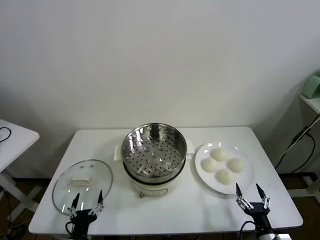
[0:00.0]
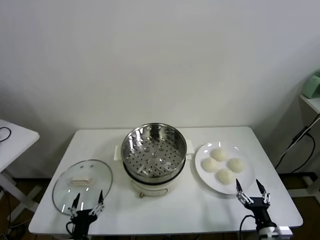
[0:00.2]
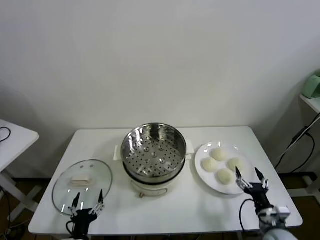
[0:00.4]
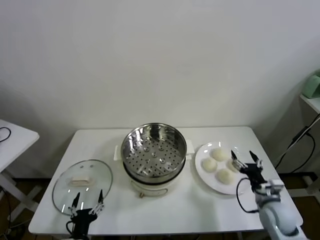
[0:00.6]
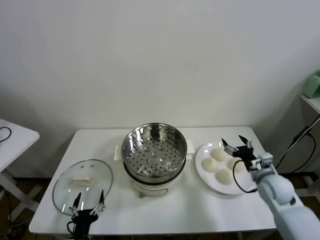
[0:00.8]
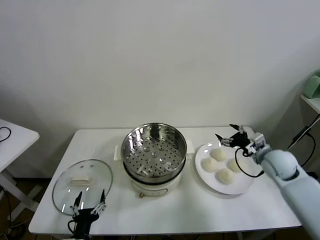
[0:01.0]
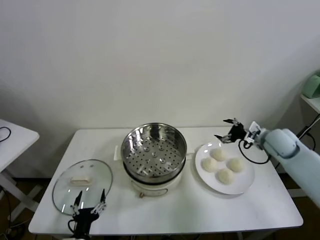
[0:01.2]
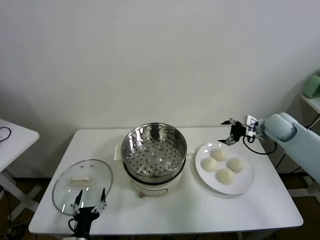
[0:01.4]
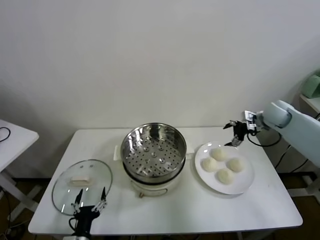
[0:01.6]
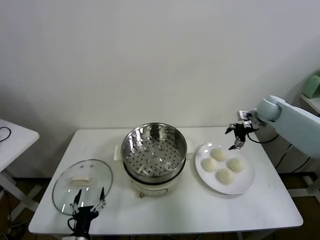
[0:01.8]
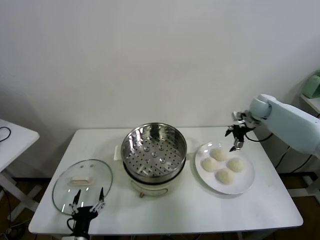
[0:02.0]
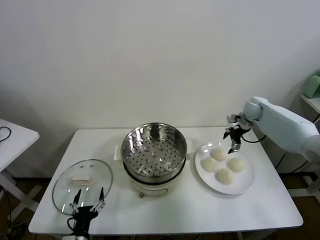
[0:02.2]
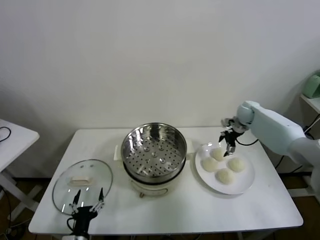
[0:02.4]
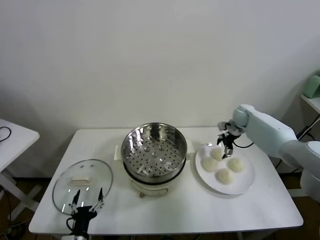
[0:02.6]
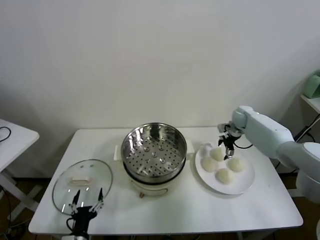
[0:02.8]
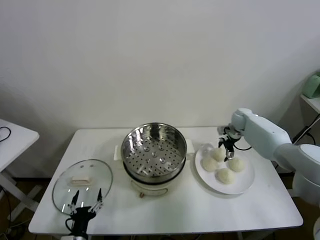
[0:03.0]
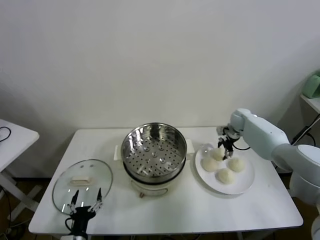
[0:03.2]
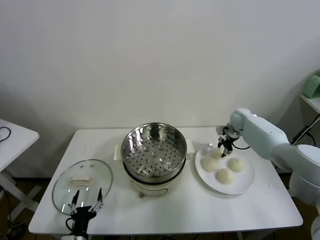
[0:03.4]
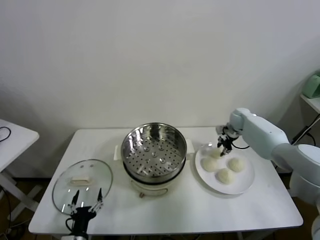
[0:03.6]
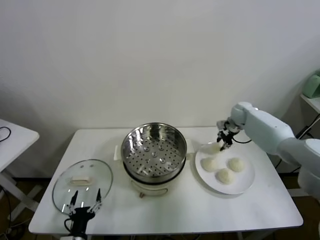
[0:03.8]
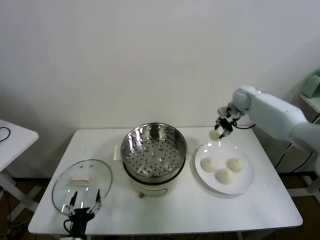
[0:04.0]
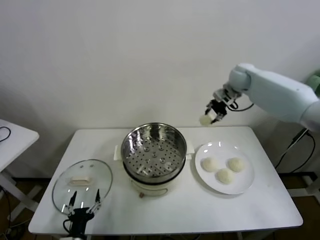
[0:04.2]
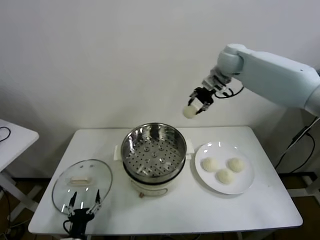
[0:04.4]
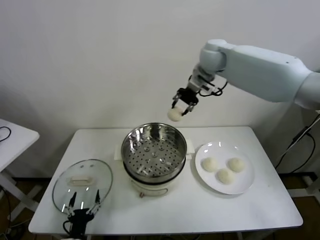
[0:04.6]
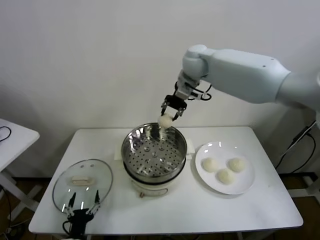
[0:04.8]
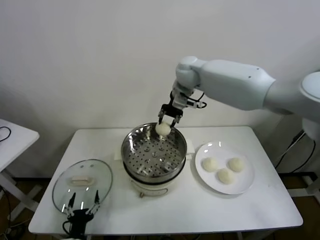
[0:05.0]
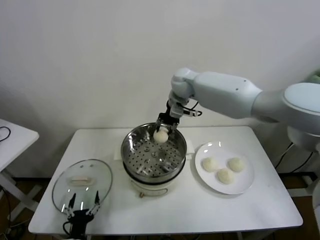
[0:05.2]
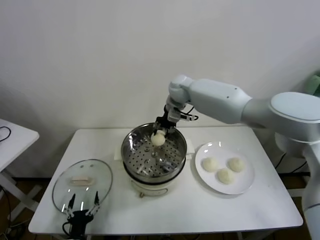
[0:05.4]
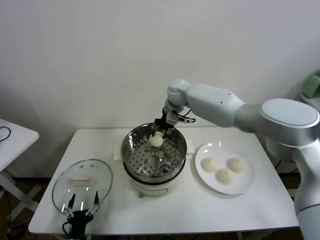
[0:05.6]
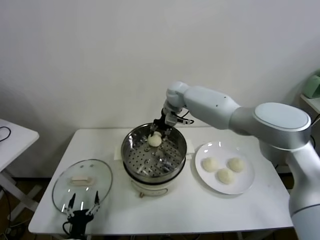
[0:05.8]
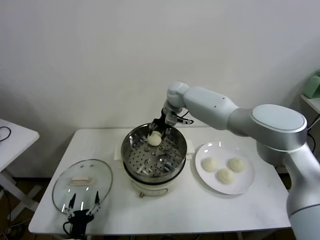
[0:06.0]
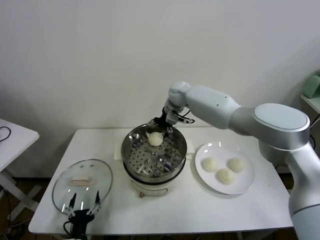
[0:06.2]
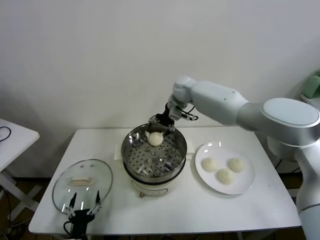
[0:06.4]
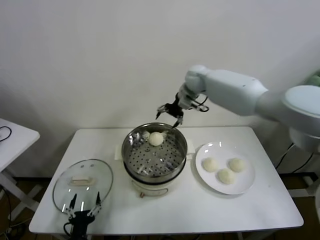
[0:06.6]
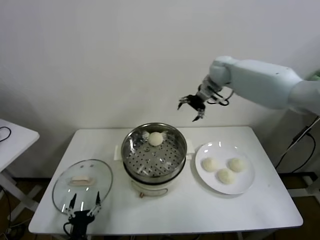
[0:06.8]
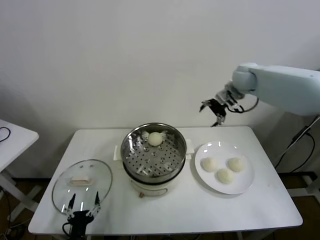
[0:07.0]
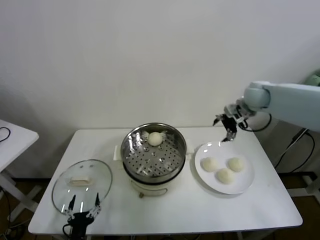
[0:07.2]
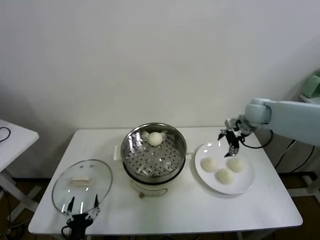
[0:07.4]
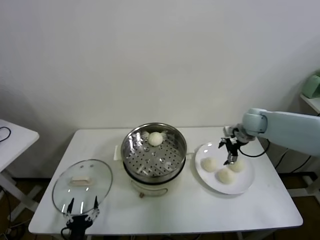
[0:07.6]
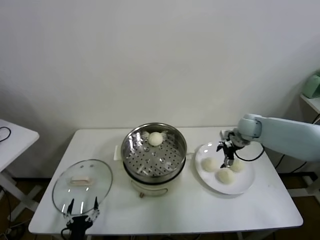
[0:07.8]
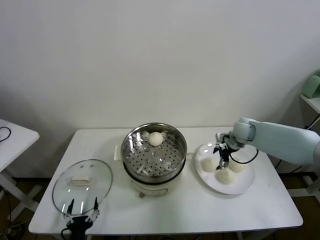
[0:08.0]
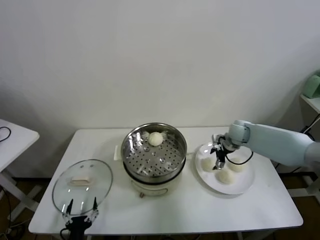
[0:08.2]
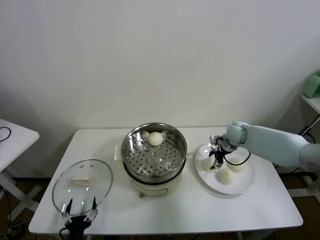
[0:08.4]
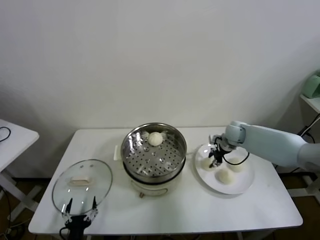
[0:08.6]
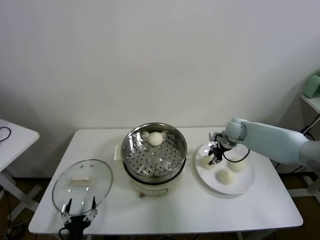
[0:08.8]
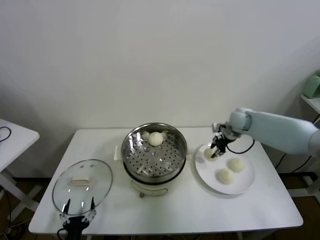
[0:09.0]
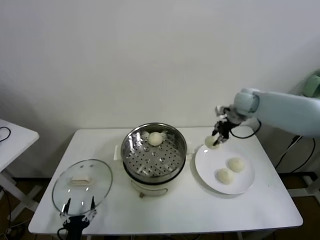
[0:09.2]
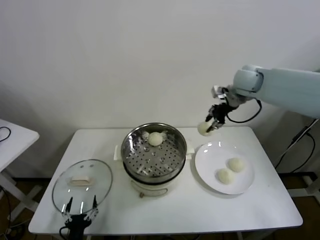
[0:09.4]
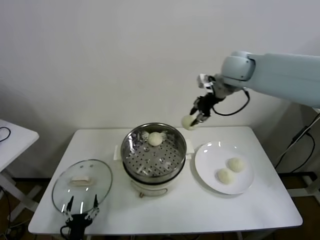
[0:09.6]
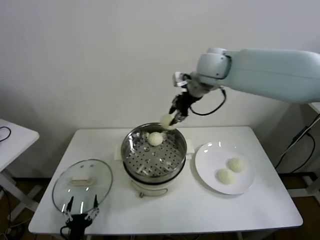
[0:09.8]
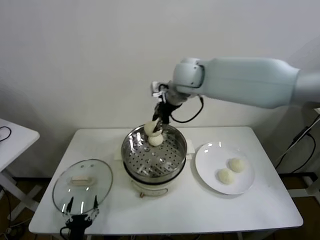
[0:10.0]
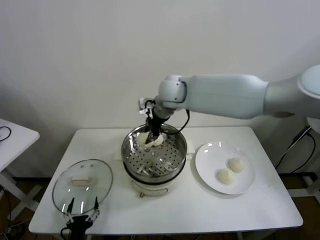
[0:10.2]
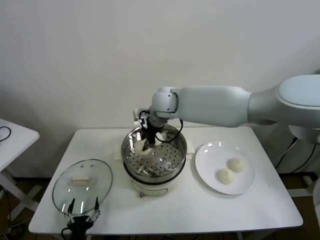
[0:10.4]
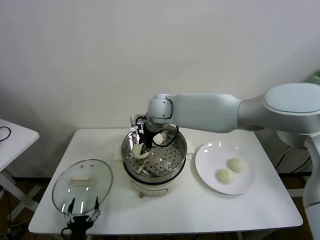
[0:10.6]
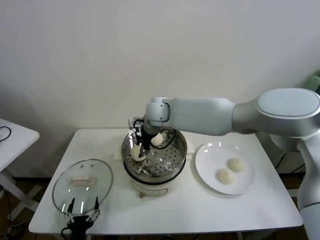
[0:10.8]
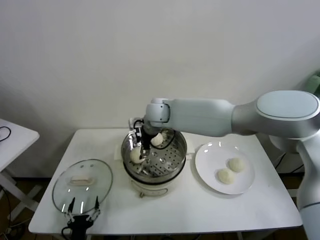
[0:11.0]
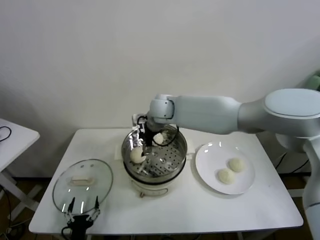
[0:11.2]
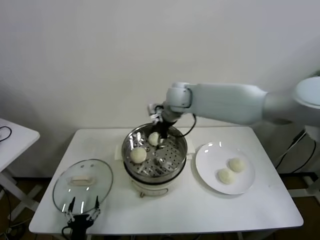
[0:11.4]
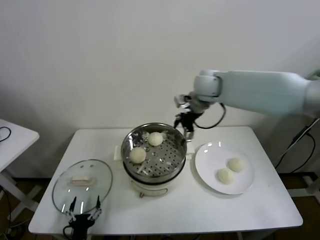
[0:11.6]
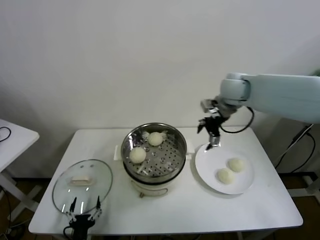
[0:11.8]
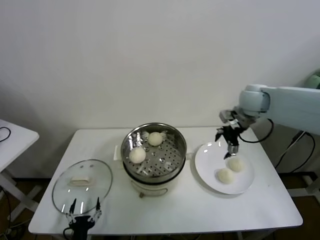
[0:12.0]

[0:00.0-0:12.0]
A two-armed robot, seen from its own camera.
Task of the whole recording: take steamed baozi put them in steamer.
Step, 0:00.0 to 0:03.4: Grasp the baozi in the plate with right gripper.
Step, 0:03.6 to 0:06.2: Place the baozi on the steamer with right gripper.
Step, 0:06.4 to 0:08.6: Grasp the baozi in the plate with right gripper.
Step, 0:08.8 to 0:11.0: Place the baozi on the steamer with right gripper.
0:01.6 to 0:03.0: The right gripper goes approximately 15 cm downward, forward and to the left.
0:03.0 to 0:04.4: The right gripper goes about 35 cm upward and to the left, and closes up.
0:04.4 to 0:06.0: The right gripper moves downward and to the left, some 20 cm, and opens up.
0:06.0 to 0:07.6: The right gripper is displaced to the right by roughly 25 cm, and opens up.
0:07.6 to 0:09.0: The right gripper travels downward and back again, approximately 5 cm each way, and closes up.
0:09.0 to 0:10.4: The right gripper is displaced to the left by approximately 30 cm.
0:10.4 to 0:12.0: The right gripper moves to the right, approximately 30 cm, and opens its fingers.

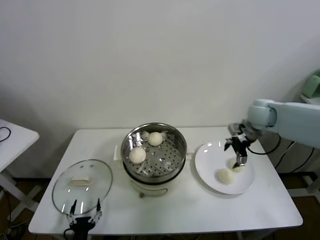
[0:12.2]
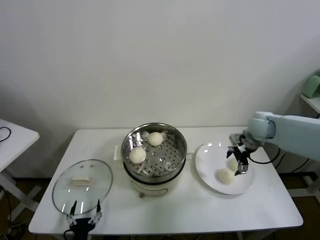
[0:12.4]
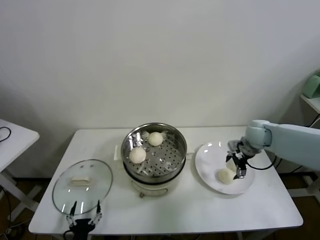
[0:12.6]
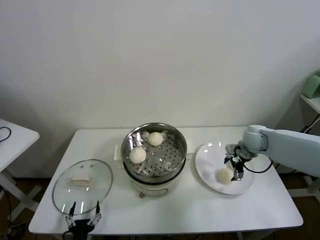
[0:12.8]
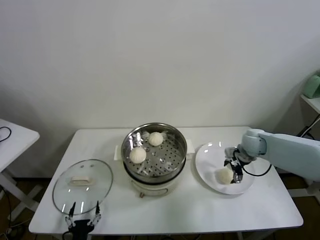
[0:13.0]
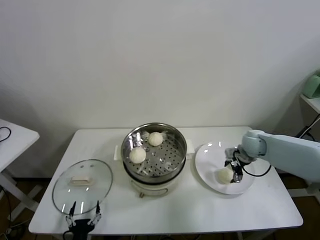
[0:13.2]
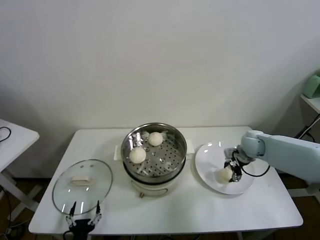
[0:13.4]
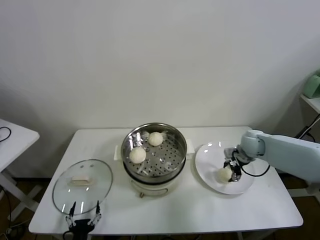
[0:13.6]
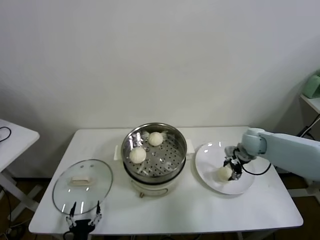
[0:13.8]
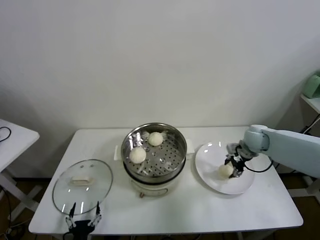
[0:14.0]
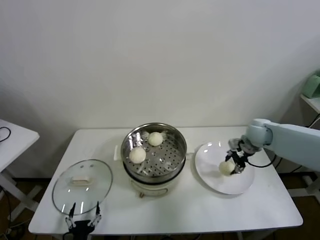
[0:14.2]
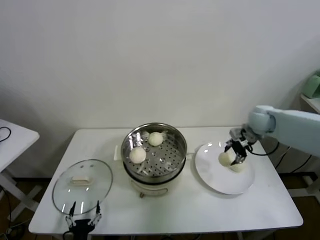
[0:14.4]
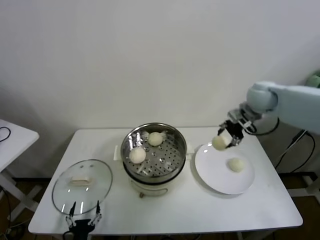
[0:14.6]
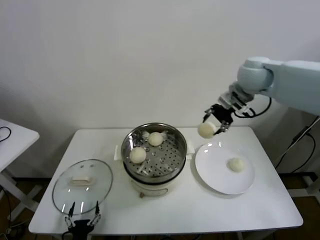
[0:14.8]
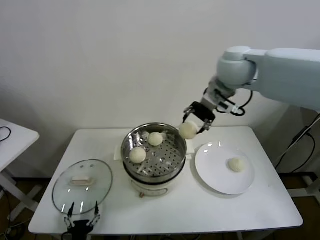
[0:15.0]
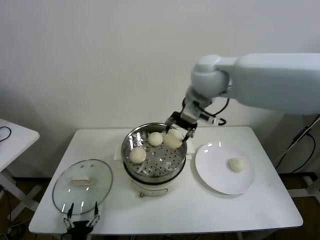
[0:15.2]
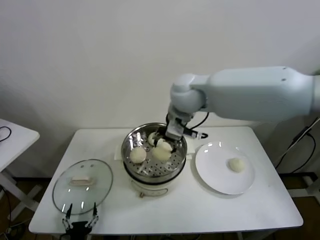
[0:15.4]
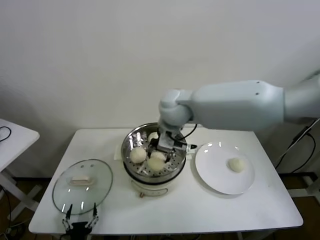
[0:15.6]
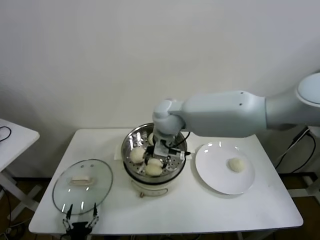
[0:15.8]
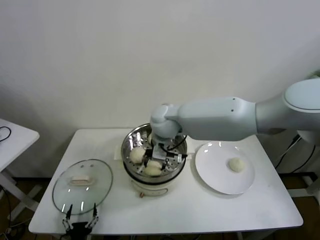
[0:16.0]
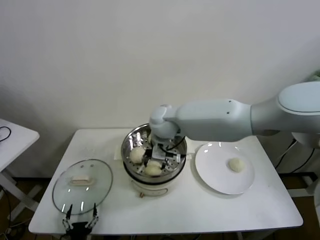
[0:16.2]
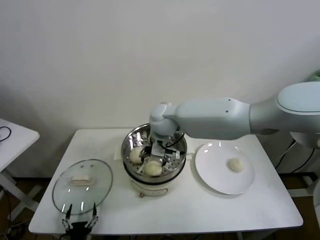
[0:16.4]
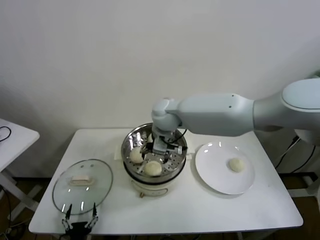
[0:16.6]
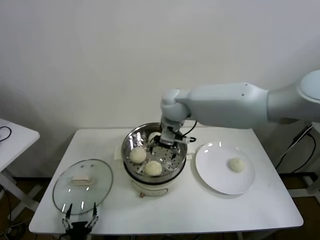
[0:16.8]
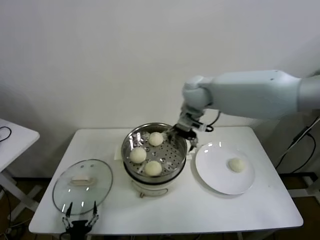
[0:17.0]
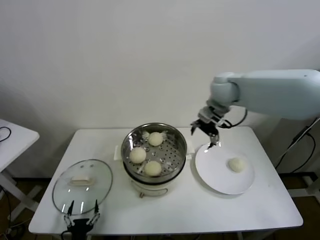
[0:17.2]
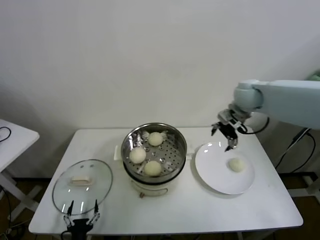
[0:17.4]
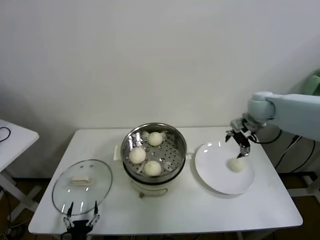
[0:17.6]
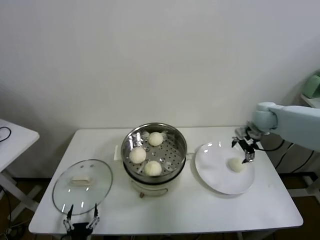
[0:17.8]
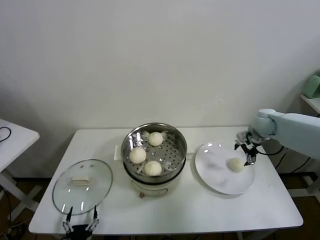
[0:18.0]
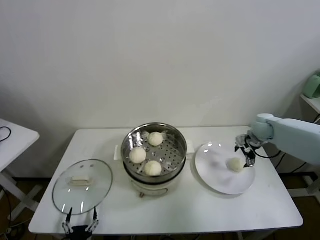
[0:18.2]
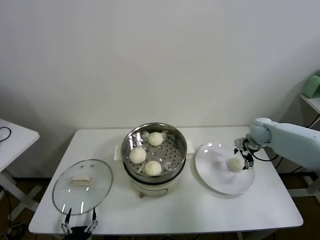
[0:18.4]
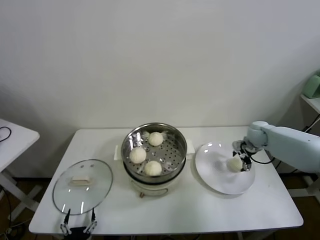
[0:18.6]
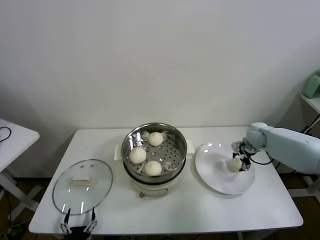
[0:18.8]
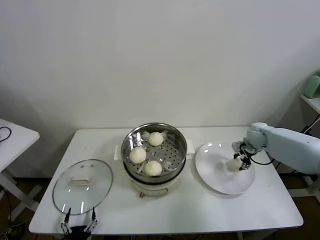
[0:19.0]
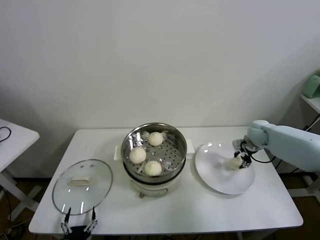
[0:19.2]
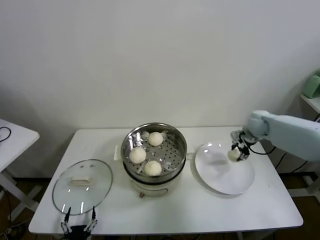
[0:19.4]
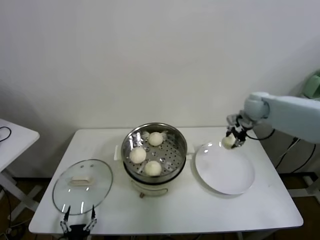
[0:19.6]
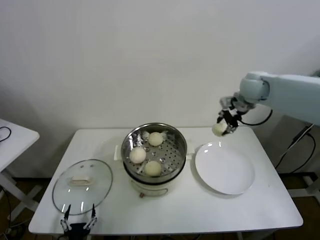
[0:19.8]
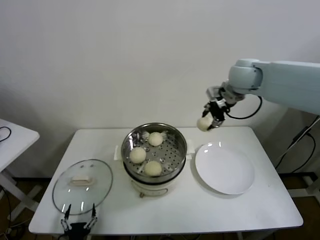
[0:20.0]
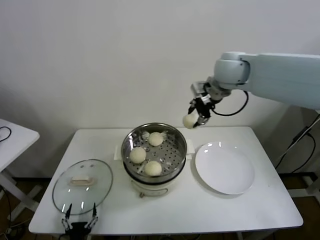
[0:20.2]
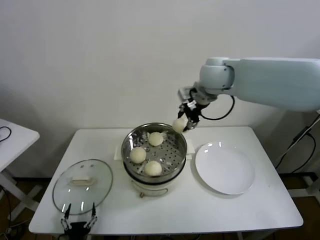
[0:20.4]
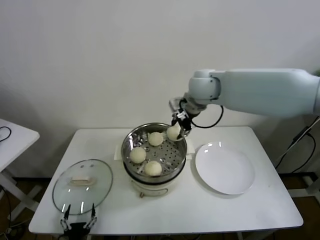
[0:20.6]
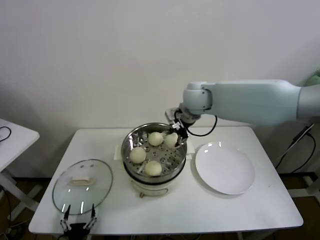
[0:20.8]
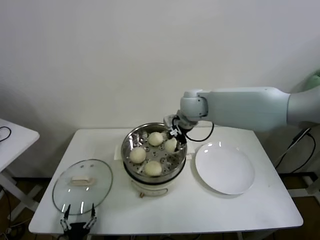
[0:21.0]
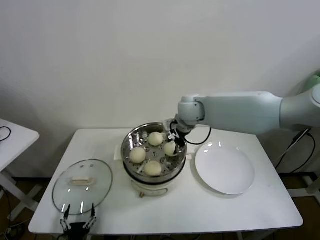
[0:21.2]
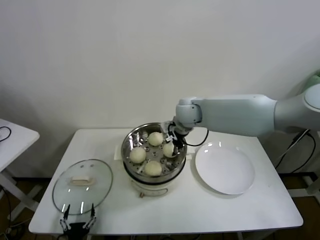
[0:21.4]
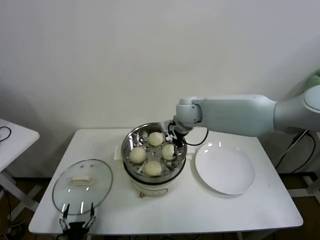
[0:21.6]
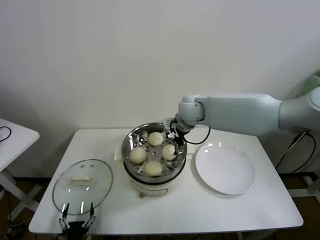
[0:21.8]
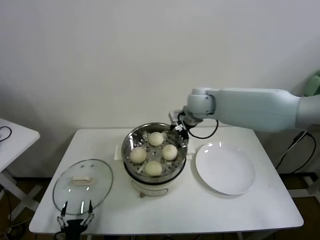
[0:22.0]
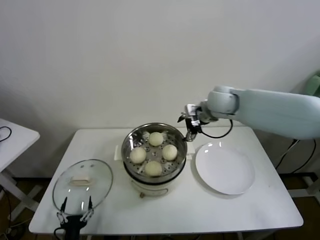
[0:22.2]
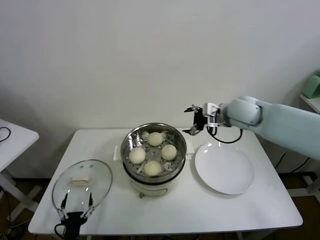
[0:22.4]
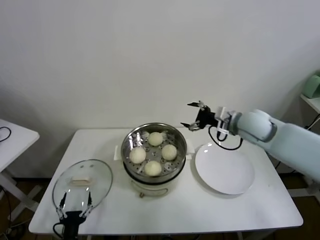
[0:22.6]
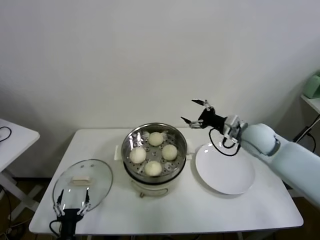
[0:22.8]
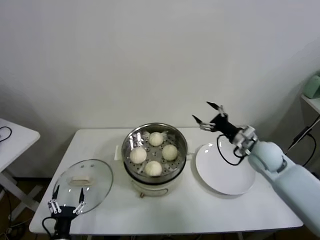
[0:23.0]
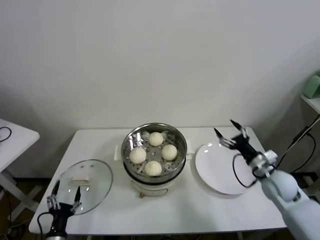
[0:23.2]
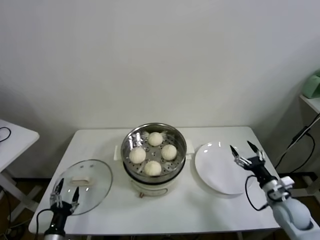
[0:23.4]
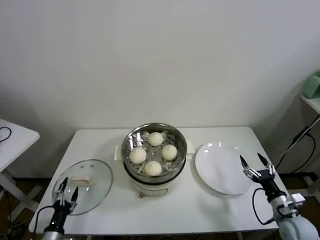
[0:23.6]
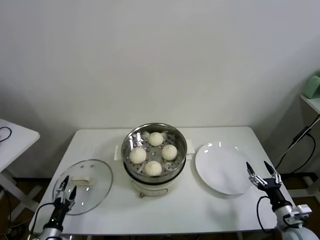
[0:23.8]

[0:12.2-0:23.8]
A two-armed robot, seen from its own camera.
Task of the whole recording: take steamed baozi put them in steamer.
Step, 0:12.2 to 0:13.4: Grasp the baozi in the plate with right gripper.
Step, 0:13.6 to 0:16.4: Place the baozi on the steamer with right gripper.
Step, 0:16.6 to 0:19.0: Grasp the baozi in the plate with right gripper.
Step, 0:19.2 to 0:21.6: Place the baozi on the steamer with right gripper.
0:12.2 to 0:13.6: The right gripper shifts some 15 cm downward, and closes its fingers.
0:13.6 to 0:15.0: The right gripper goes approximately 35 cm upward and to the left.
0:15.0 to 0:16.6: The right gripper travels to the left and downward by approximately 25 cm, and opens up.
0:16.6 to 0:18.0: The right gripper travels to the right by about 35 cm.
0:18.0 to 0:19.4: The right gripper moves about 10 cm downward and comes back, and closes its fingers.
0:19.4 to 0:21.0: The right gripper goes some 30 cm to the left and upward.
0:21.0 to 0:22.4: The right gripper travels to the right by some 15 cm, and opens up.
0:22.4 to 0:23.8: The right gripper goes approximately 50 cm downward, backward and to the right, while the left gripper moves to the left, approximately 10 cm.
